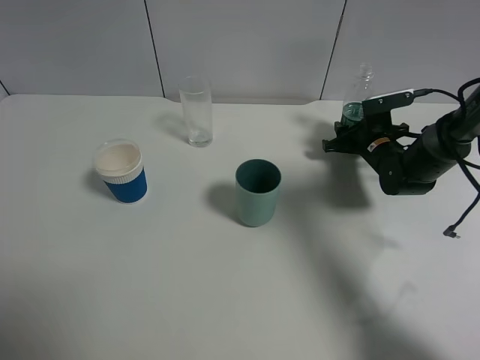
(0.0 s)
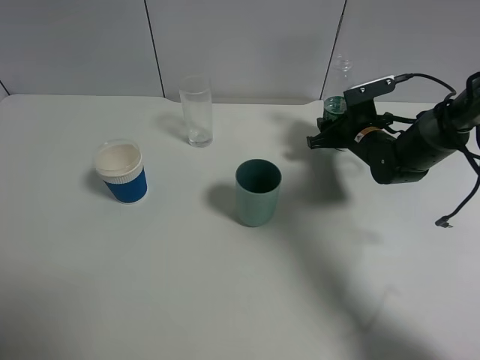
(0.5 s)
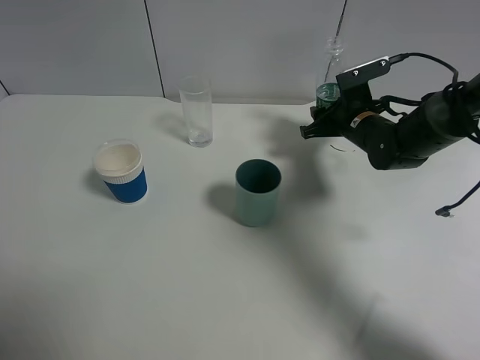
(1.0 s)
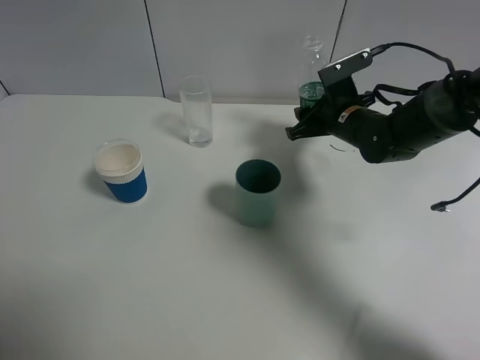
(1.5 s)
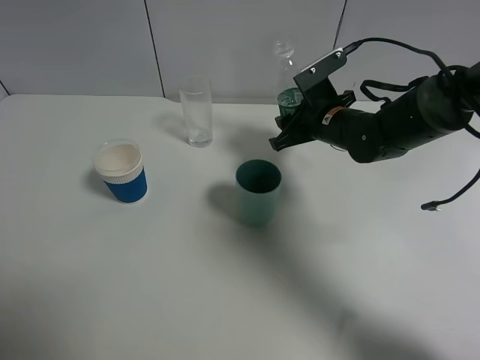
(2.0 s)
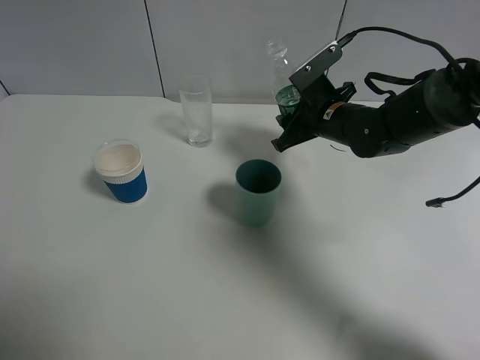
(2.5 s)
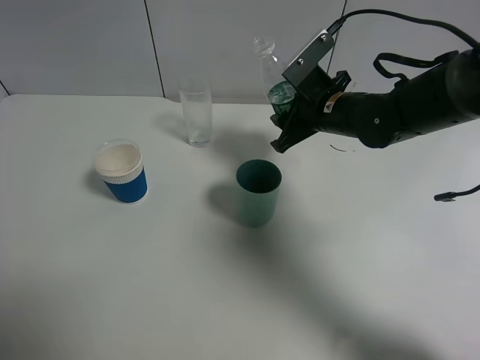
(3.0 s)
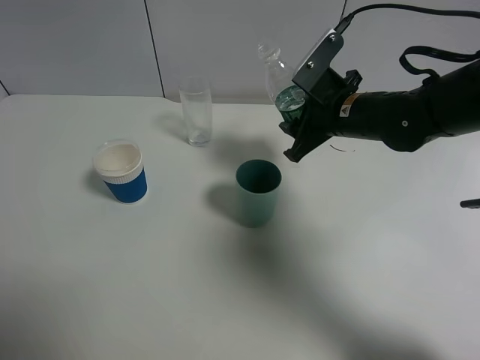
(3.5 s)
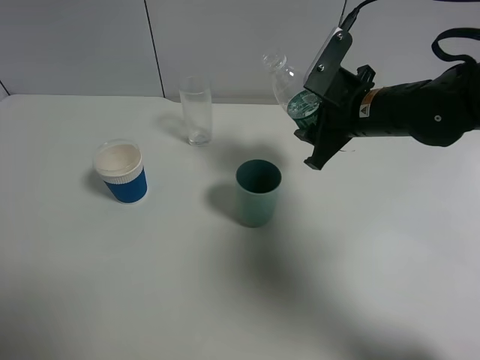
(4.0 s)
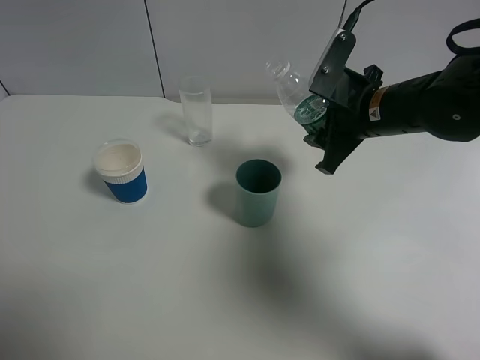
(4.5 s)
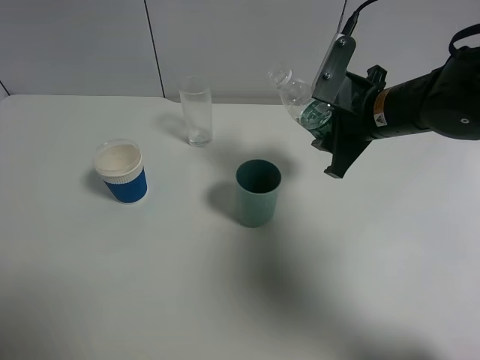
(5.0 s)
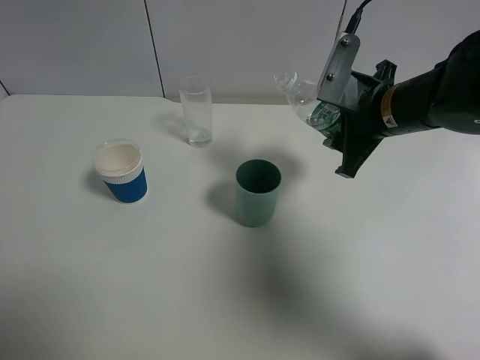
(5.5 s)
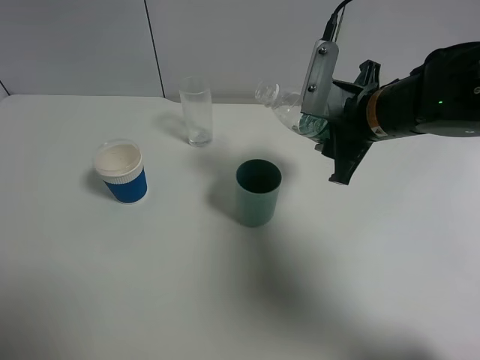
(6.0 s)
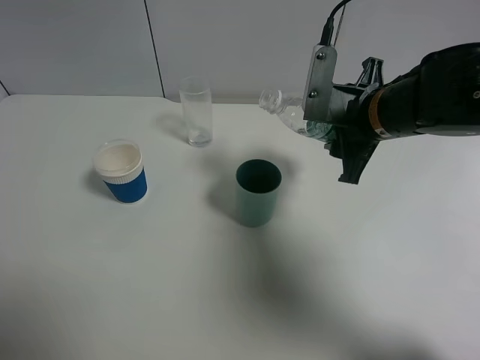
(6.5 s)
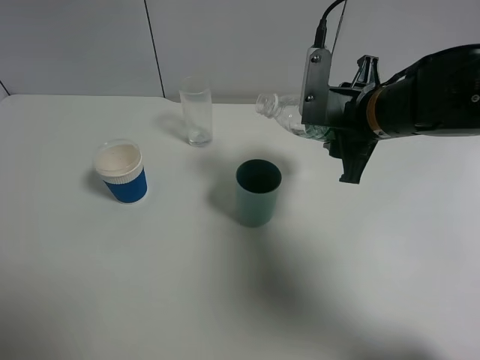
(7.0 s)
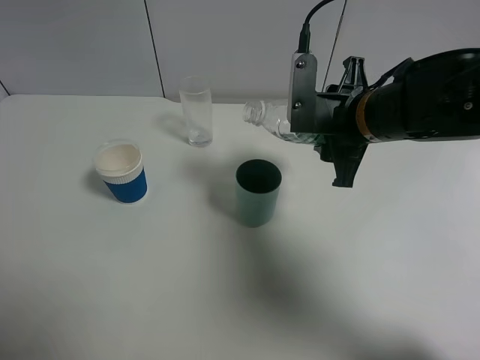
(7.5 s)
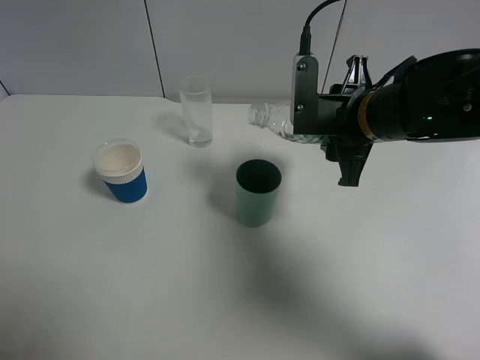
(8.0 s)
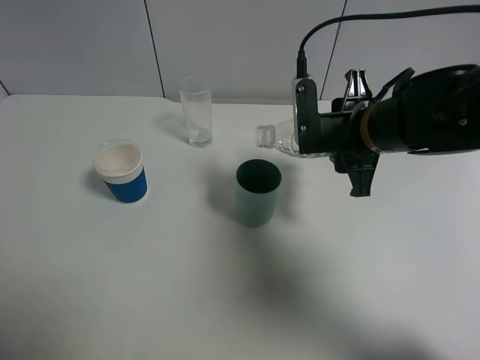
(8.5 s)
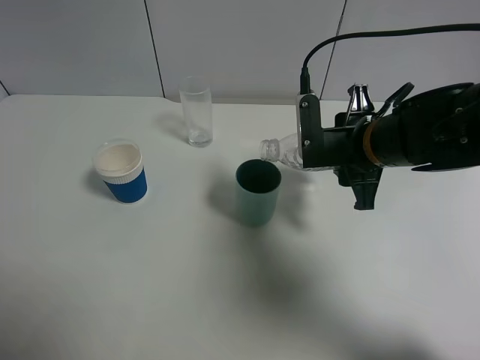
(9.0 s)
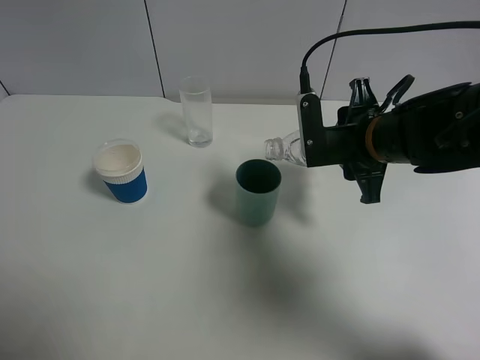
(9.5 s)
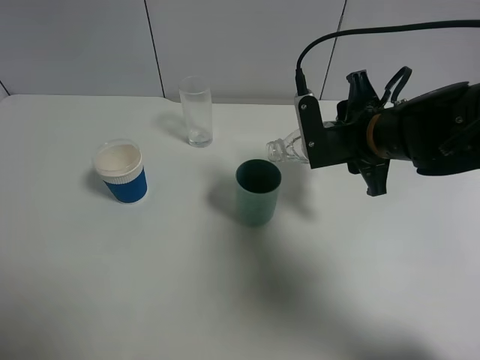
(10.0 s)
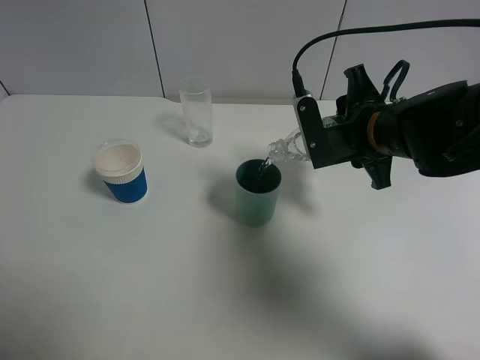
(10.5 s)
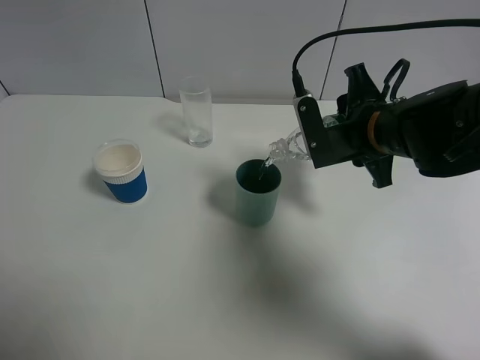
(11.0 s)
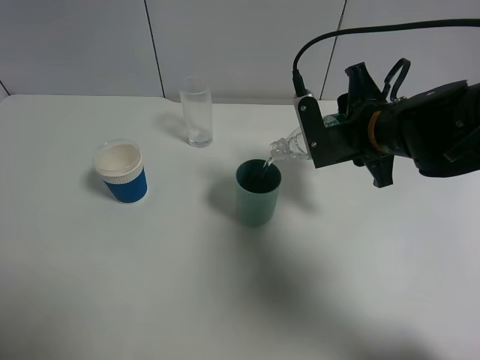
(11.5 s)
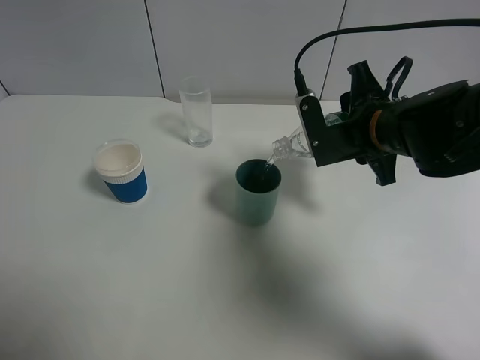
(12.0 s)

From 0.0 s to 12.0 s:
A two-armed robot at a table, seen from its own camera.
Task of the whole recording: use a gripper to hold the bottle of the drink and pour it into a random cup.
From 0.0 s to 2.0 s: The right gripper is displaced to the left and upward by roughly 15 cm.
From 2.0 s to 4.0 s: The right gripper goes about 10 cm upward and backward.
From 4.0 s to 6.0 s: The grippers move only a little.
From 6.0 s to 8.0 s: There are only small adjustments of the grippers.
From 8.0 s to 10.0 s: The grippers stay close to where they were, moving slightly.
From 10.0 s to 12.0 s: There are only small adjustments of the grippers.

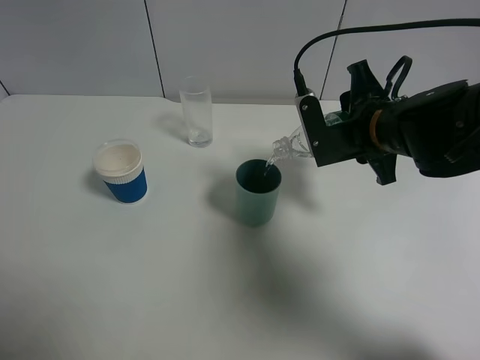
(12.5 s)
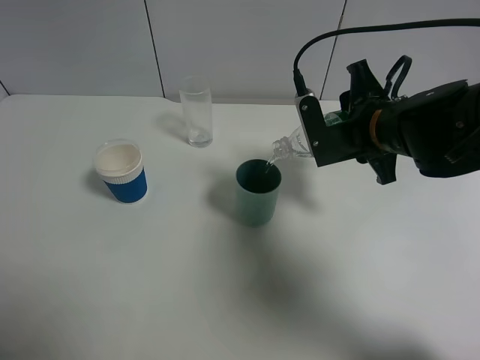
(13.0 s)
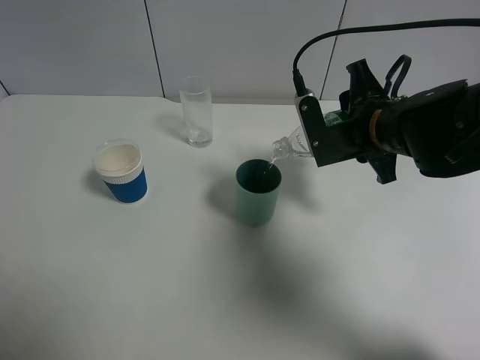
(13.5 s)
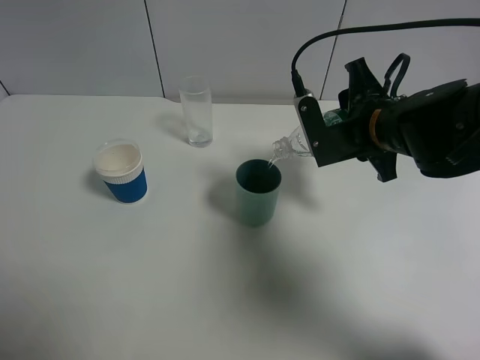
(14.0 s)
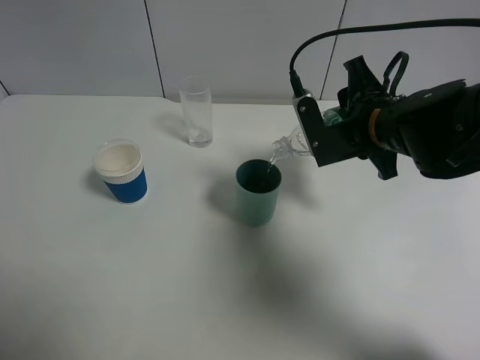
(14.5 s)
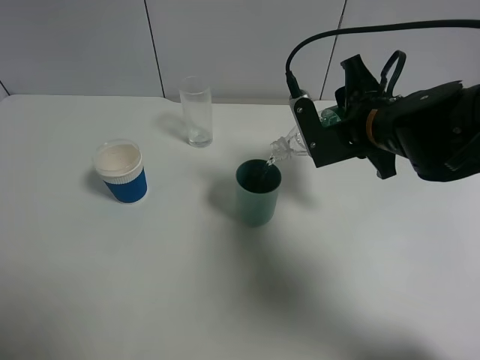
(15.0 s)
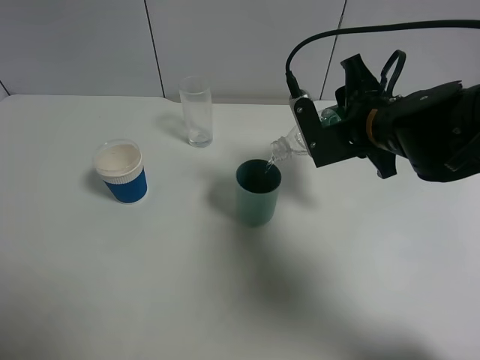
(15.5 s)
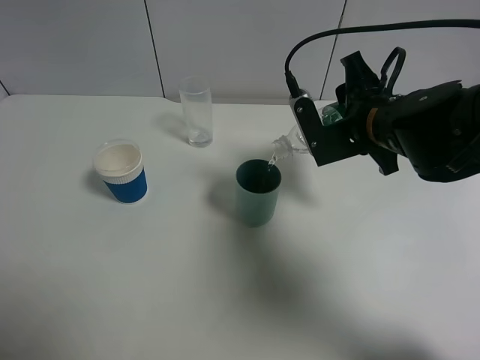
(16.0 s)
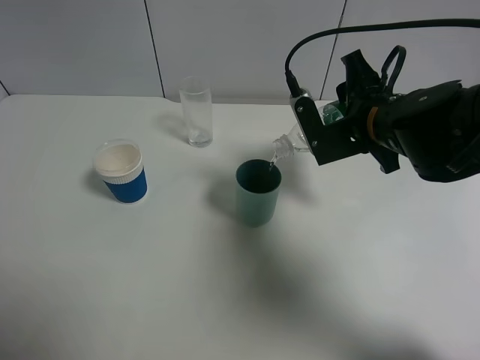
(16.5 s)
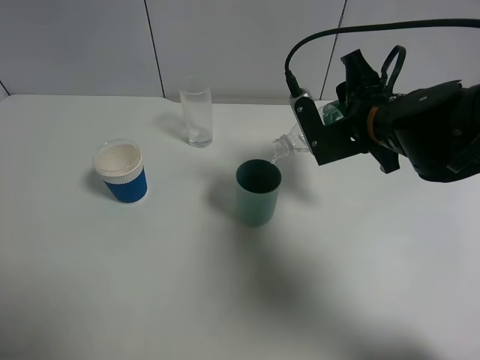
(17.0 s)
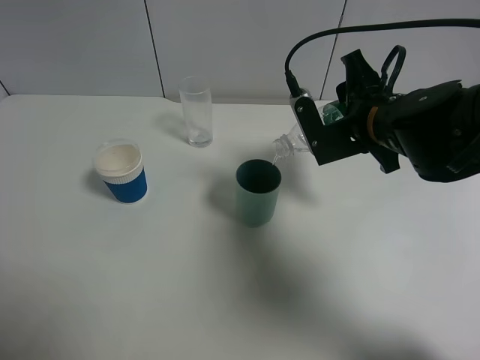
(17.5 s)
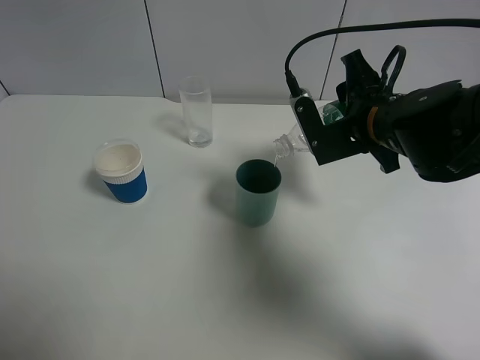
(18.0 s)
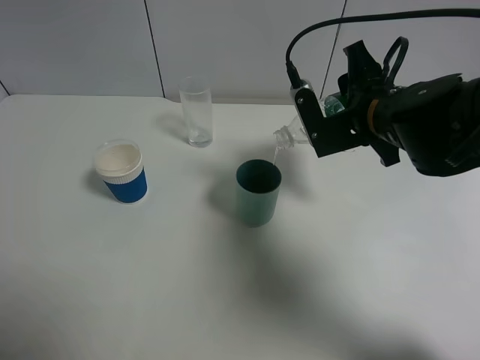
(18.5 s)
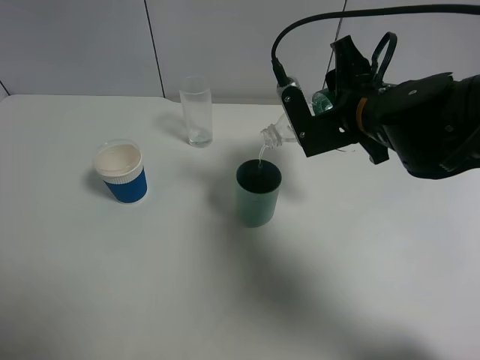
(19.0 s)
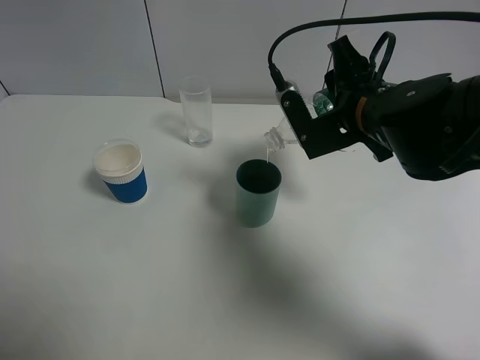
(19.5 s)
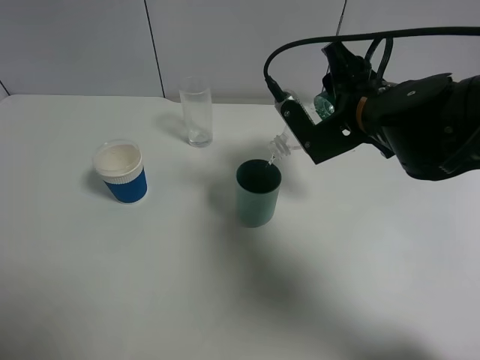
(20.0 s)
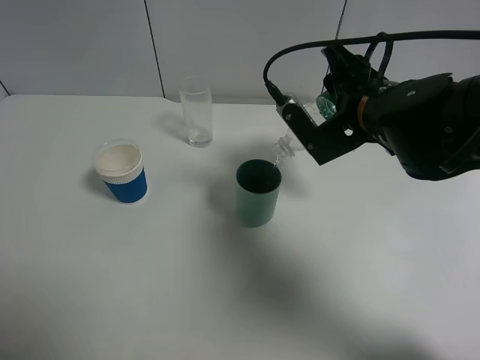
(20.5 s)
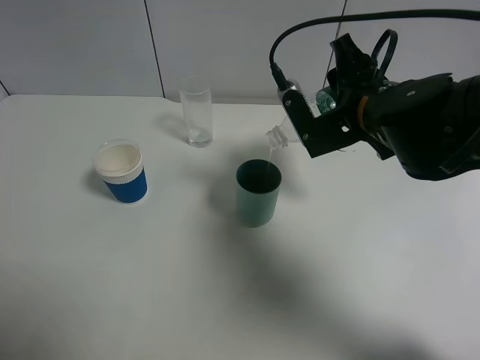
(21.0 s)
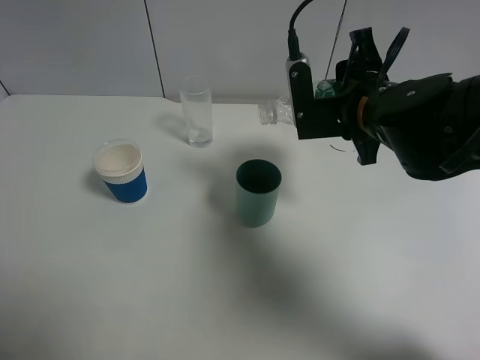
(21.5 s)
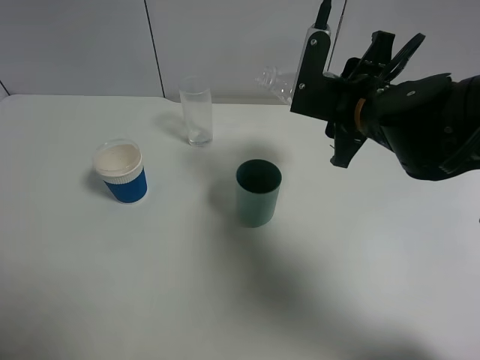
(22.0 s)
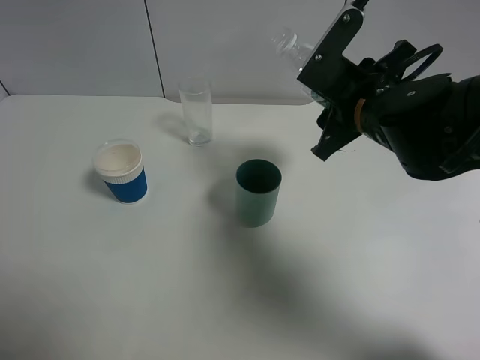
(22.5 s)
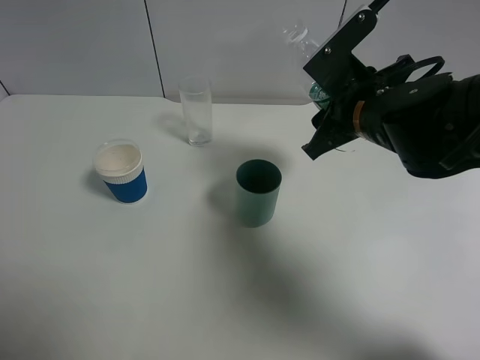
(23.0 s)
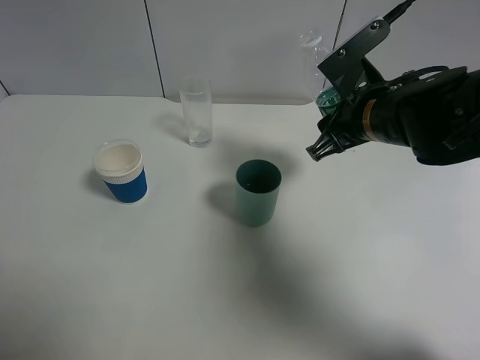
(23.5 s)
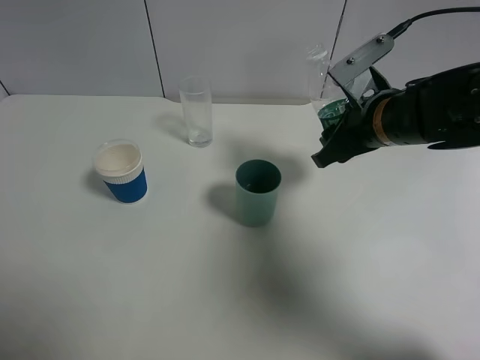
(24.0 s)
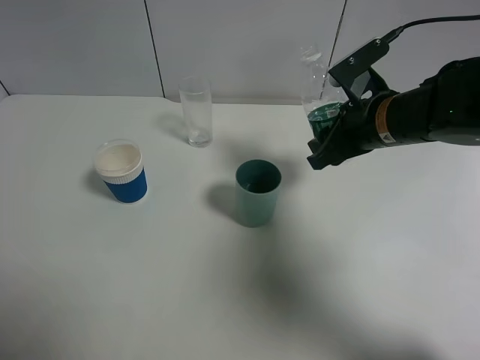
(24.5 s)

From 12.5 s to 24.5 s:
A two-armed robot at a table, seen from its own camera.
Task of the whole recording: use a gripper to hold the bottle of the drink and pour it into a random cup.
Step, from 12.5 s to 21.5 s: Pour the mineral water into the cyan cup with the right gripper.
From 12.5 s to 14.5 s: Both grippers stay about where they are.
From 14.5 s to 16.5 s: Both grippers stay put.
From 16.5 s to 18.5 s: Both grippers stay about where they are.
From 18.5 s to 20.5 s: The grippers move only a little.

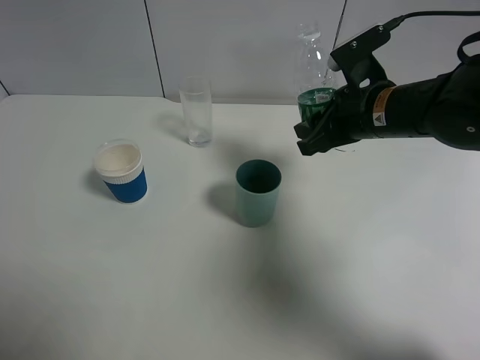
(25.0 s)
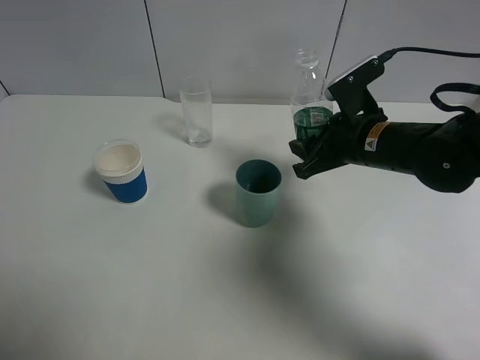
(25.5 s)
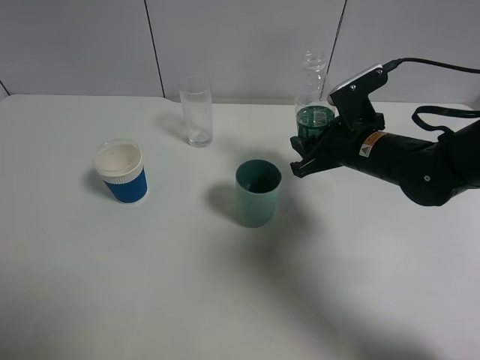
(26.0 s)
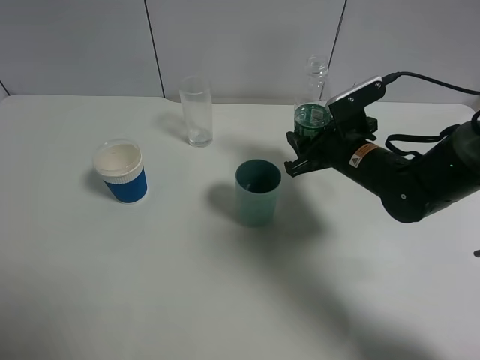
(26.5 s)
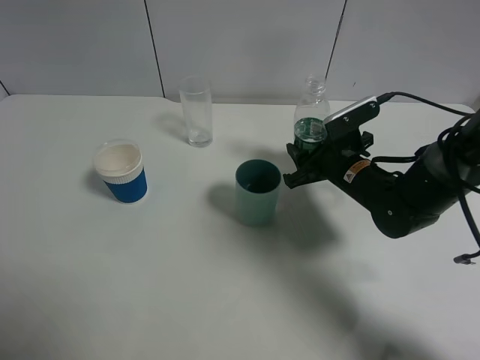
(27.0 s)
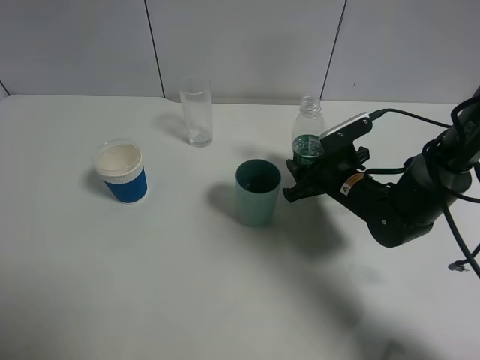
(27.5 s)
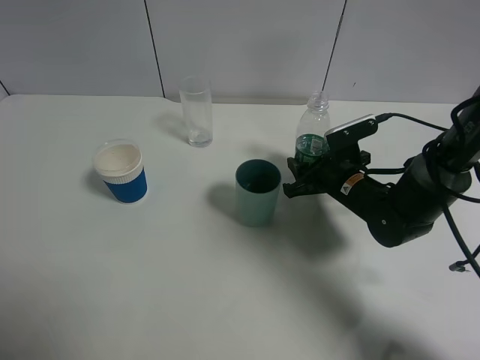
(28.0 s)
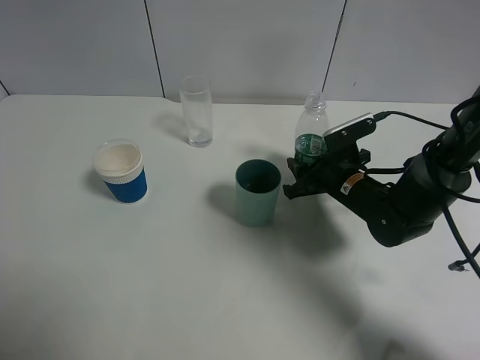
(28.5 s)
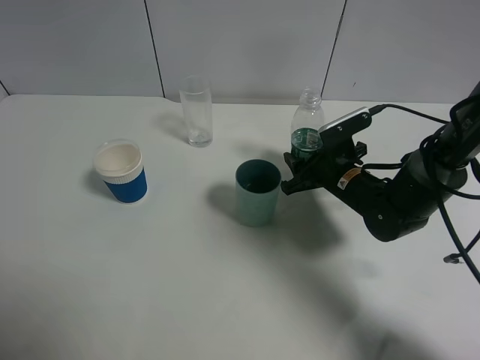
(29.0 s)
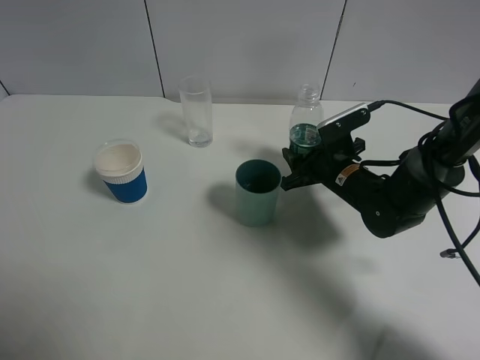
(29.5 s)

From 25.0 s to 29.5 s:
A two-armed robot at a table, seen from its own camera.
Task of the whole recording: use a gripper to hold the bottle of the drink and pour it into a random cup.
From 25.0 s to 27.0 s: The right gripper goes some 10 cm downward.
From 27.0 s to 29.5 s: The grippers make only small movements.
